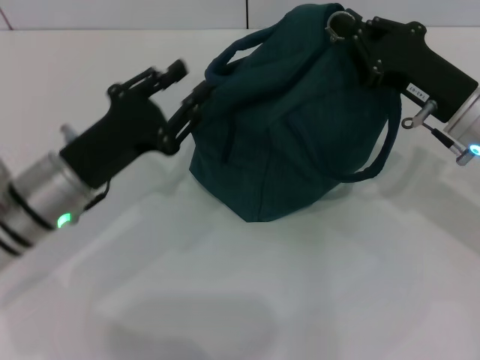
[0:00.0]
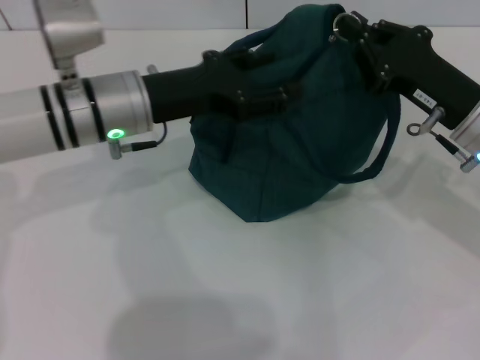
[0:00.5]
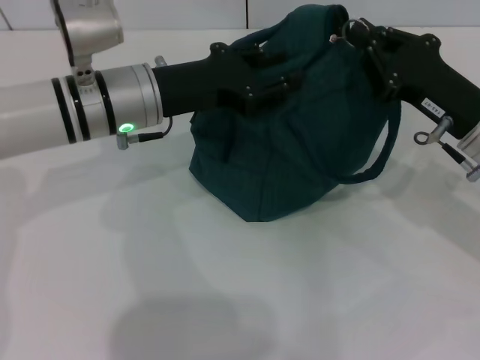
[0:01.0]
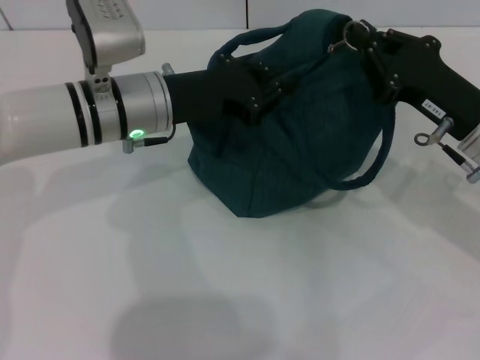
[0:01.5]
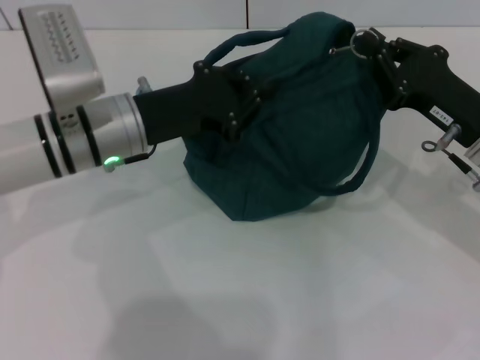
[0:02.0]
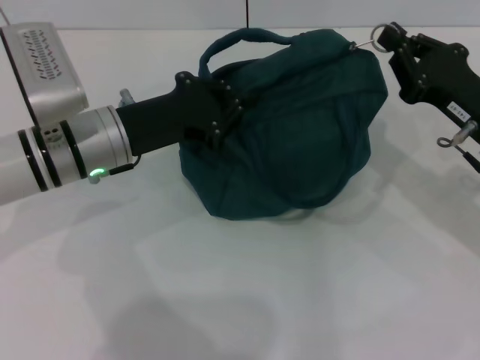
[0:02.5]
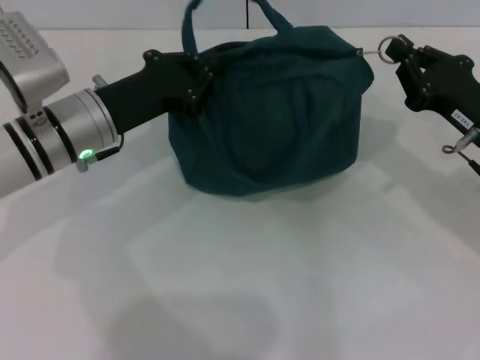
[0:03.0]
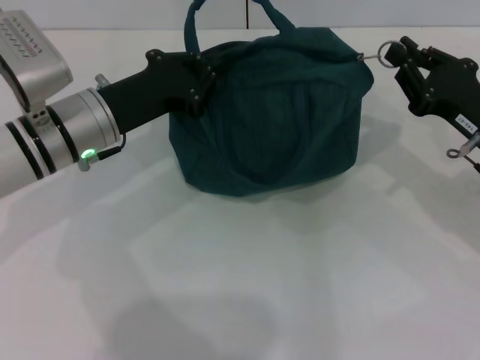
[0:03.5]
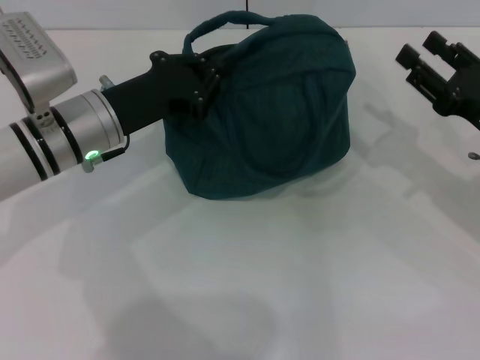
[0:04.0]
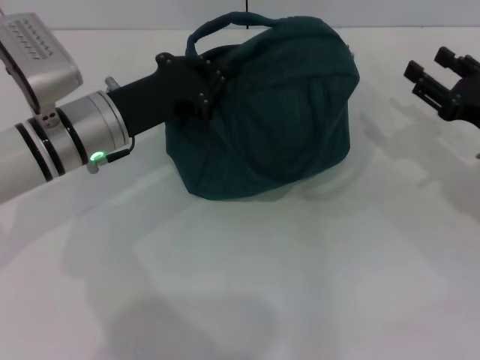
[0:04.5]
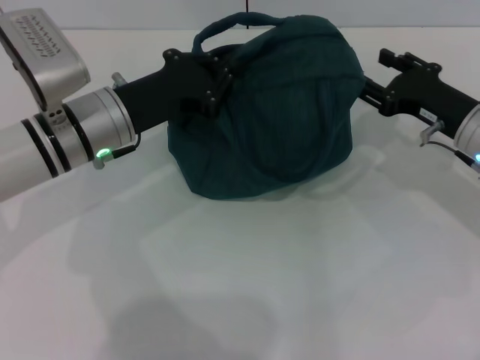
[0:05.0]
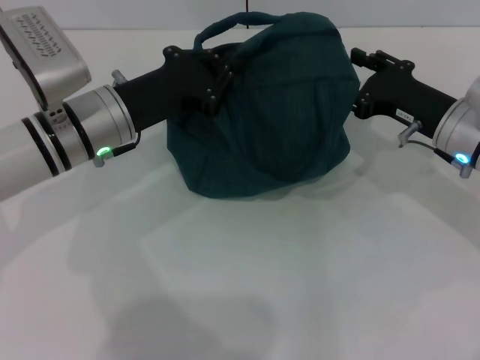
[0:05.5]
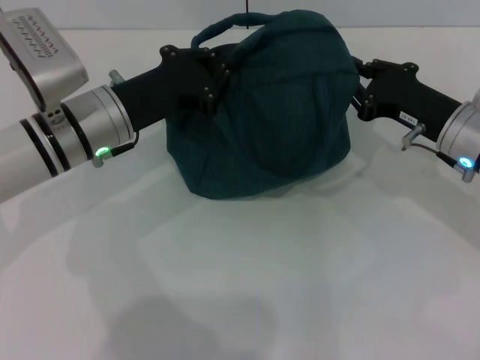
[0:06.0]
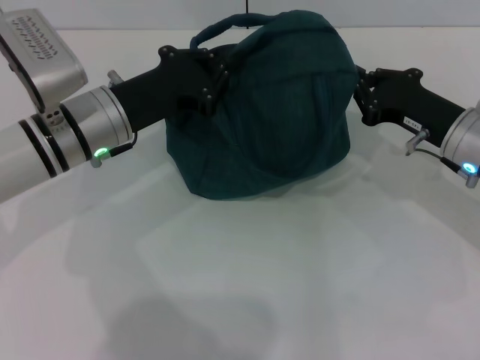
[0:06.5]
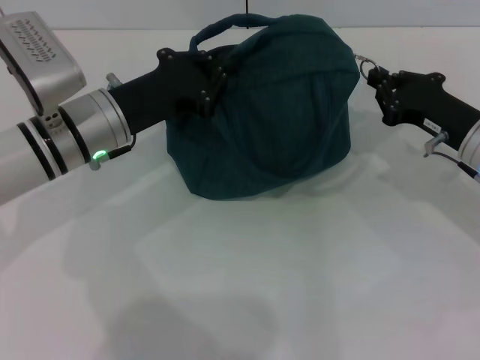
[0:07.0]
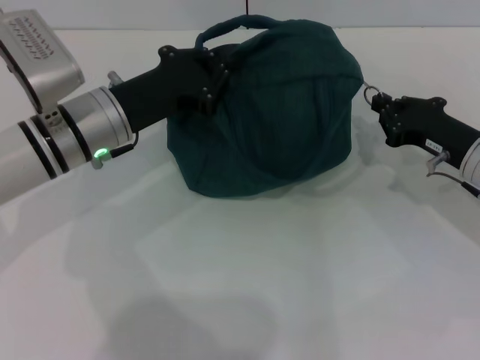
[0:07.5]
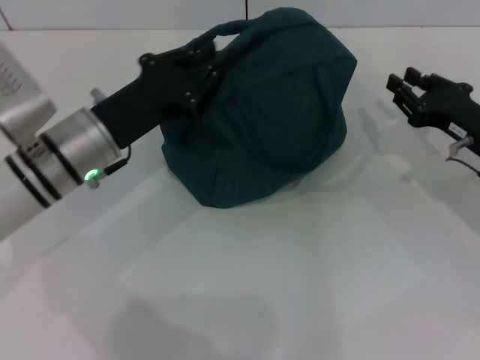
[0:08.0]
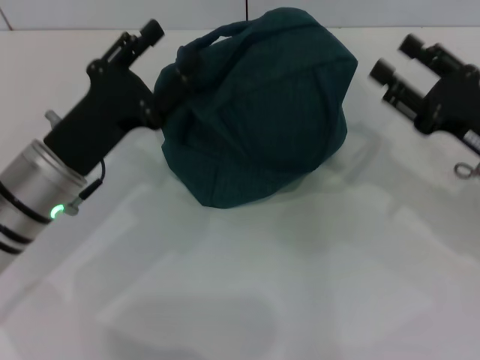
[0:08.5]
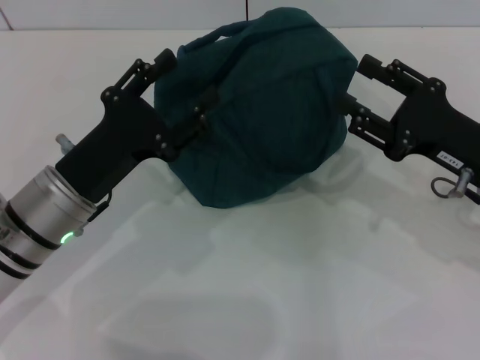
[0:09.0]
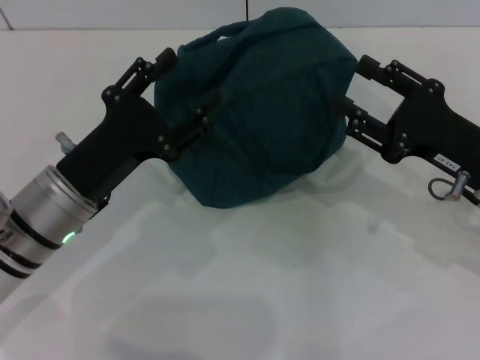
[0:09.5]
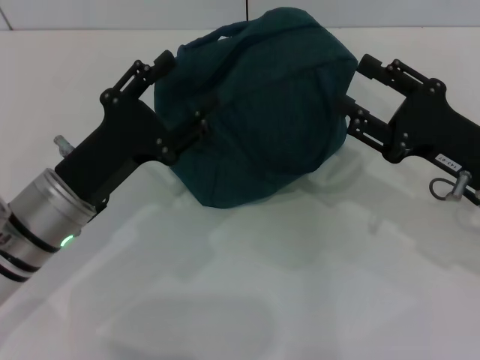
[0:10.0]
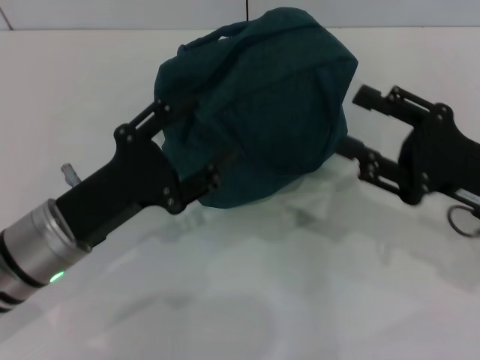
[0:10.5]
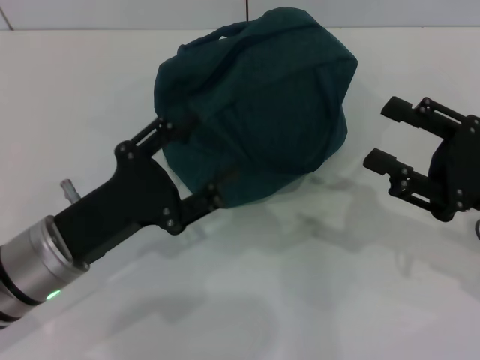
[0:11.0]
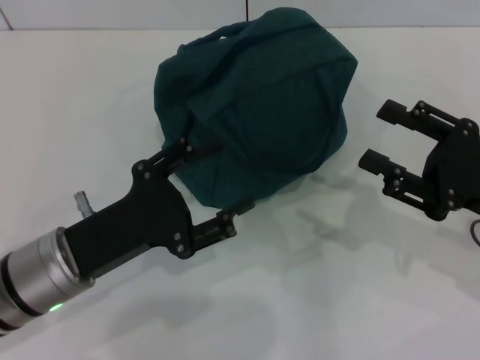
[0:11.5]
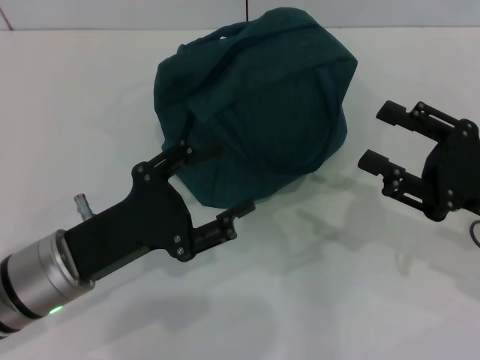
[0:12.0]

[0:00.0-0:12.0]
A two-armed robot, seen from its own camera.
Step, 0:00.0 to 0:07.5: Zip up the lunch bag with your right hand.
0:00.0 to 0:02.0: The left gripper moves forward, roughly 5 cm.
0:02.0 to 0:04.0: The right gripper opens.
0:04.0 to 0:06.0: The right gripper is displaced to the left by about 5 cm.
0:06.0 to 0:08.0: The right gripper moves about 5 cm.
0:08.0 to 0:10.0: The two grippers go about 5 cm backward. The right gripper opens up. The left gripper opens.
